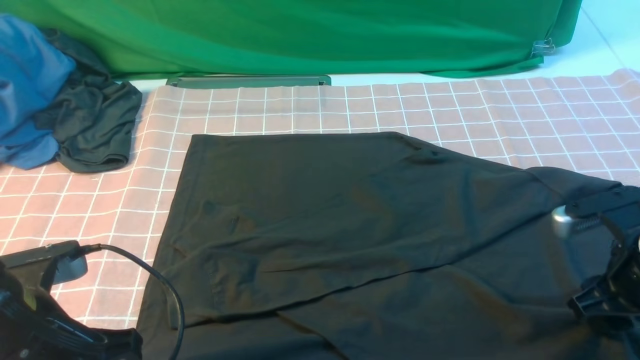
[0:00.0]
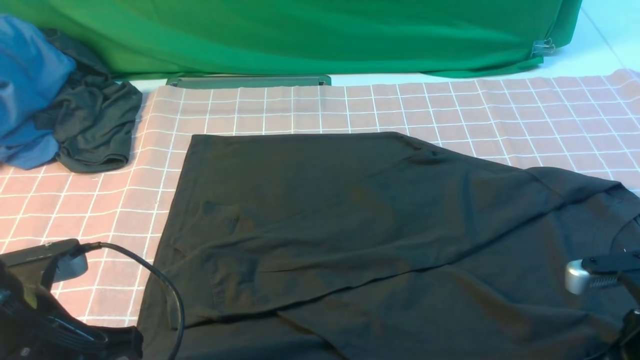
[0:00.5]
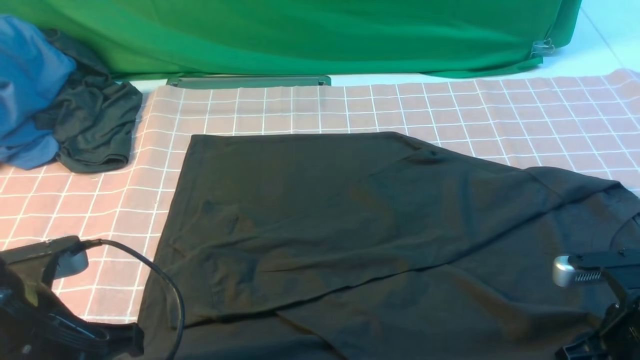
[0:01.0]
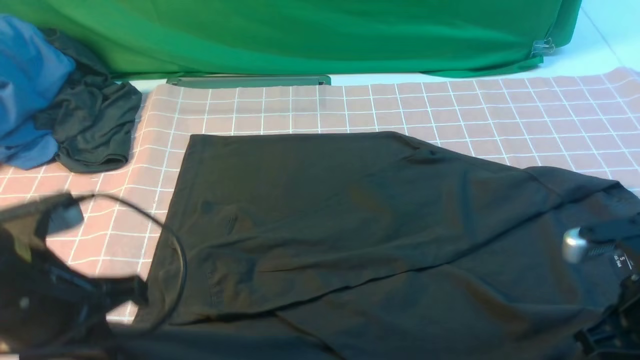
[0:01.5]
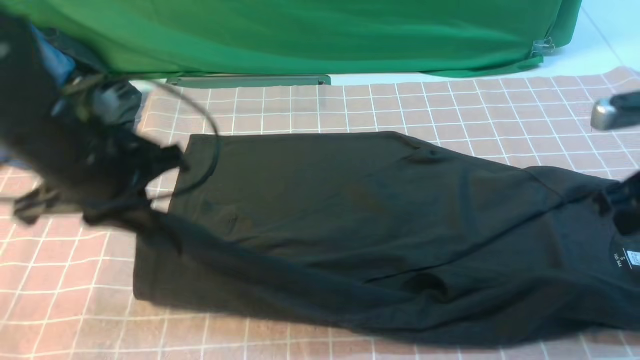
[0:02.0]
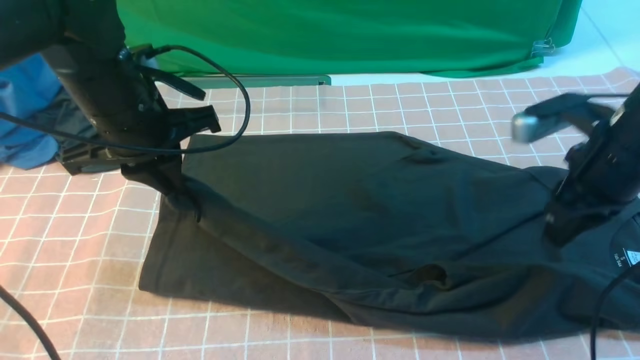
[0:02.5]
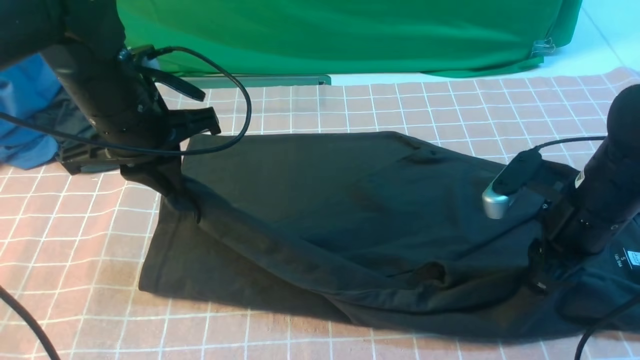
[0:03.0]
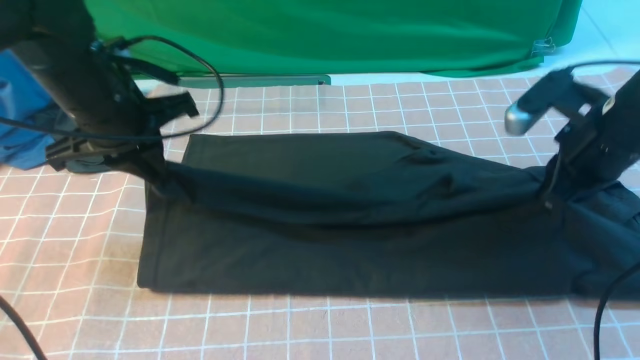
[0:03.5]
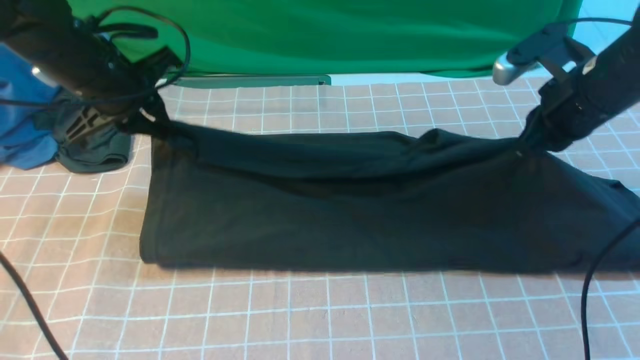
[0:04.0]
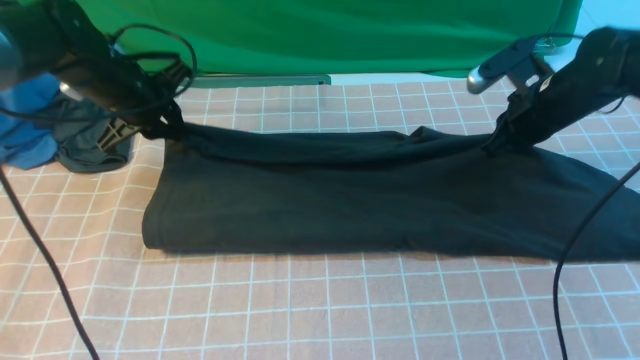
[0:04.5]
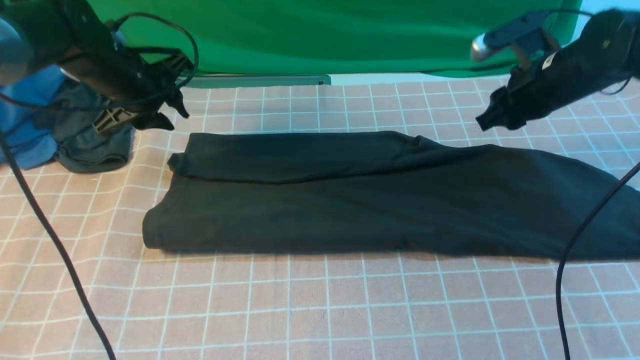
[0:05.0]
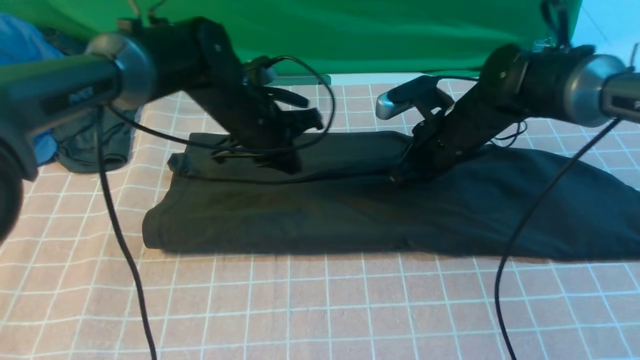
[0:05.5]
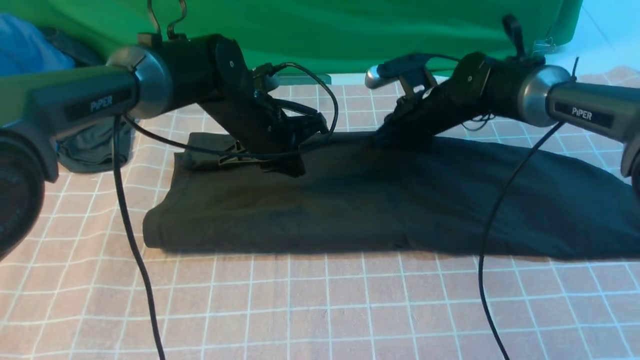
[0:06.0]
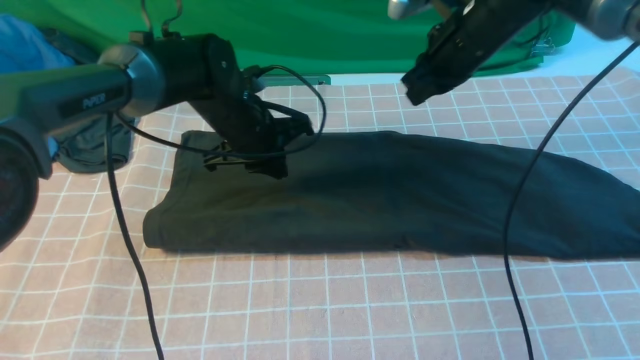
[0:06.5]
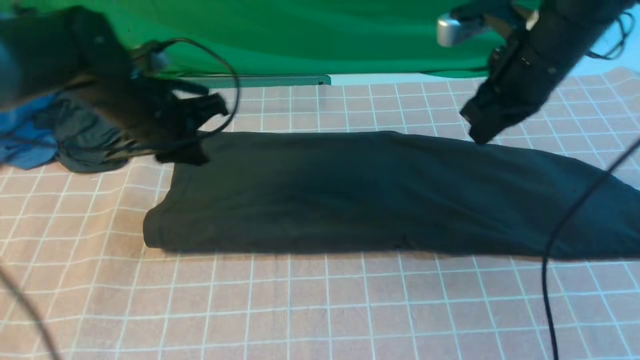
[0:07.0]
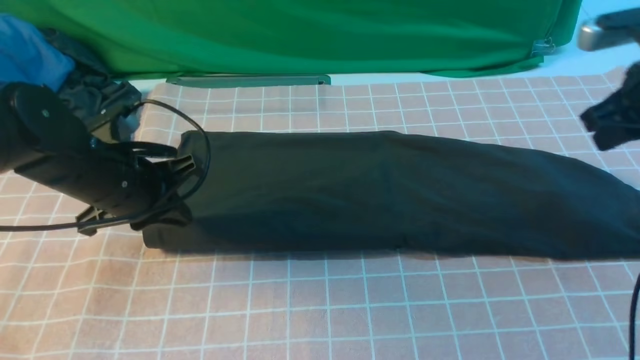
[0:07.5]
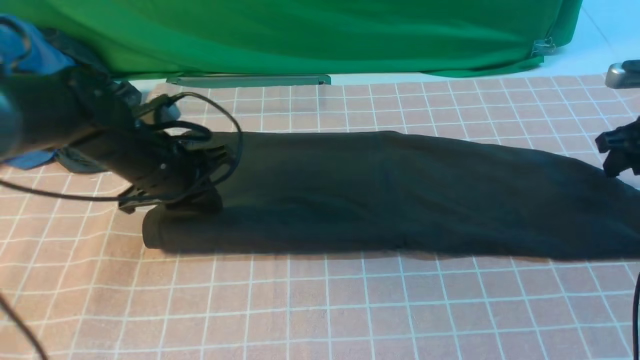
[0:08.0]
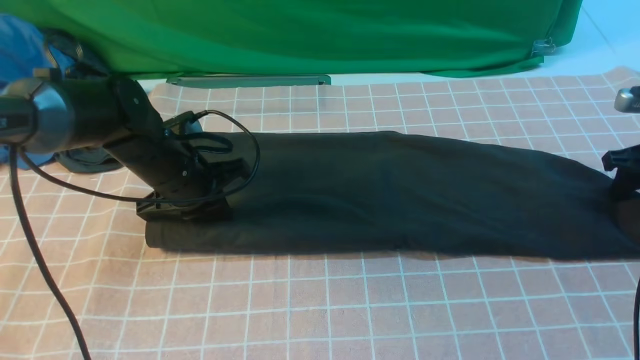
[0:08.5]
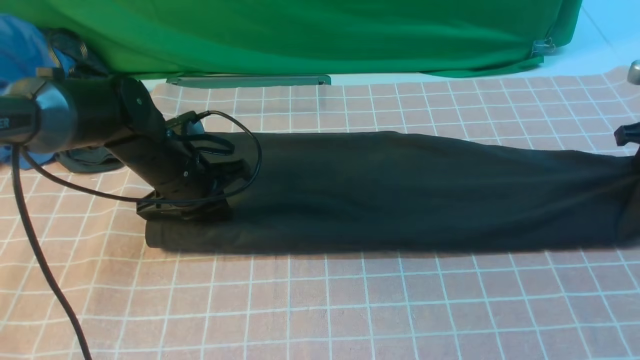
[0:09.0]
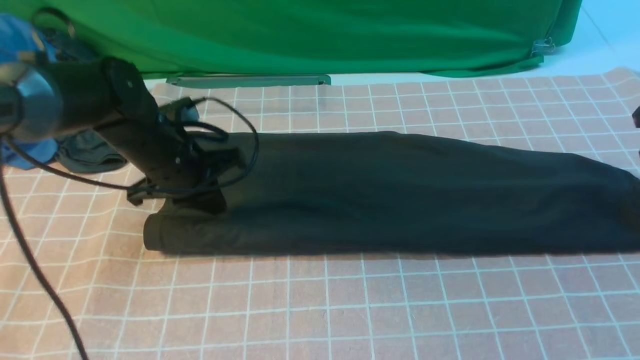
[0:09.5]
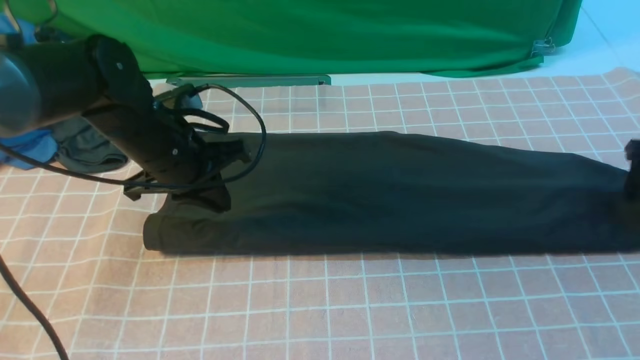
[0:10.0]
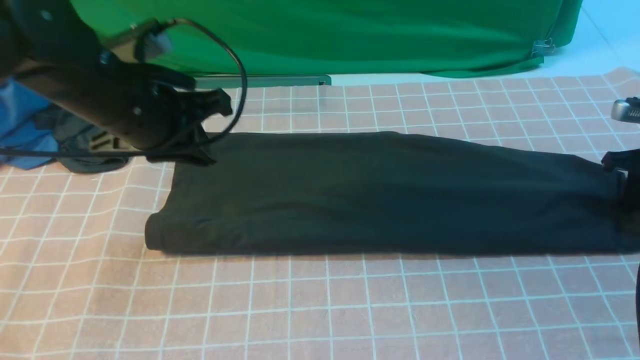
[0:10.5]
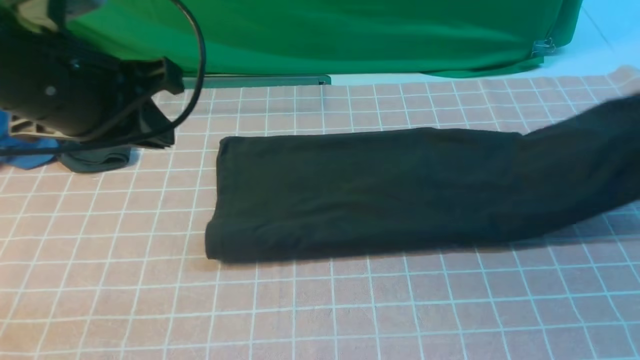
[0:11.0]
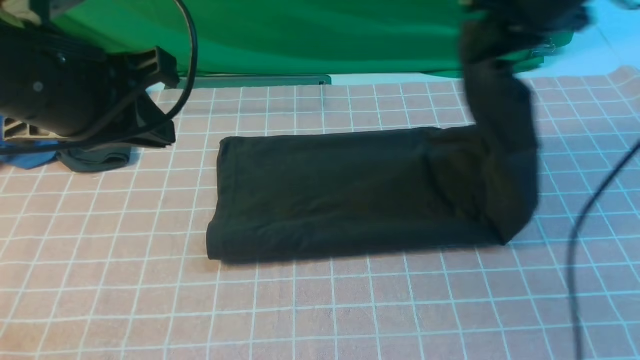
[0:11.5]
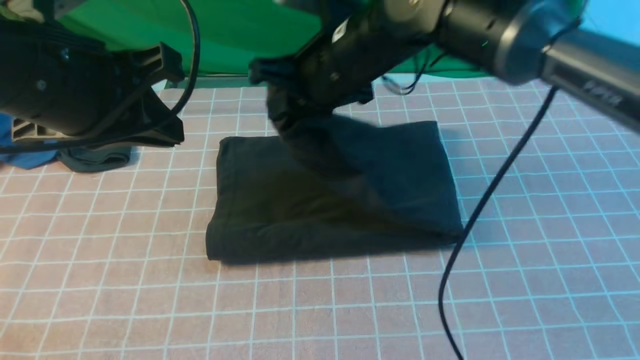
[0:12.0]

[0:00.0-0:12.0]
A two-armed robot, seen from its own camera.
Step, 0:02.0 to 0:05.0: use both arms to drag the lower edge of the fabric forward and fold it over the upper edge.
Step, 0:05.5 to 0:10.5: use the right arm to clamp the right edge of the fabric.
0:00.0 to 0:02.0: The left gripper goes roughly 15 cm forward and upward. The right gripper goes approximately 10 cm upward and forward, and closes up.
0:02.0 to 0:04.0: Both grippers travel together forward, roughly 10 cm. The right gripper opens, then closes once more.
0:04.0 to 0:06.0: The left gripper travels to the right and downward by some 15 cm. The right gripper travels to the left, forward and downward by roughly 15 cm.
0:06.0 to 0:08.0: The right gripper shifts some 25 cm to the right, and opens its fingers. Meanwhile the left gripper heads to the left and backward, covering some 10 cm.
0:08.0 to 0:10.0: The right gripper closes, then reopens.
0:10.0 to 0:12.0: The right gripper moves to the left, about 40 cm, and closes its fingers. Meanwhile the left gripper moves upward and backward, approximately 20 cm.

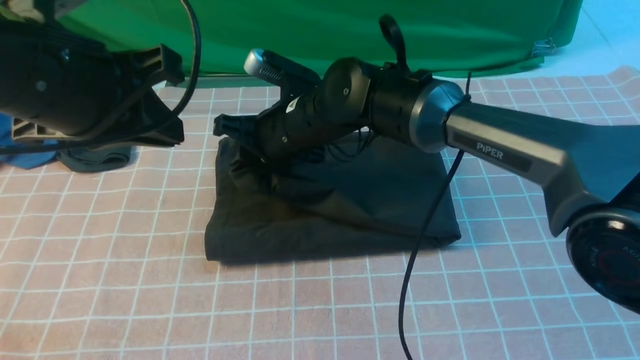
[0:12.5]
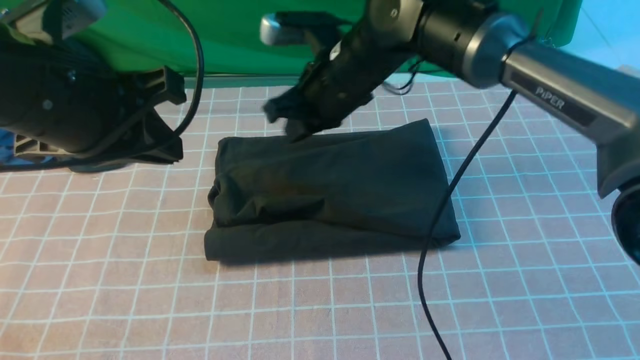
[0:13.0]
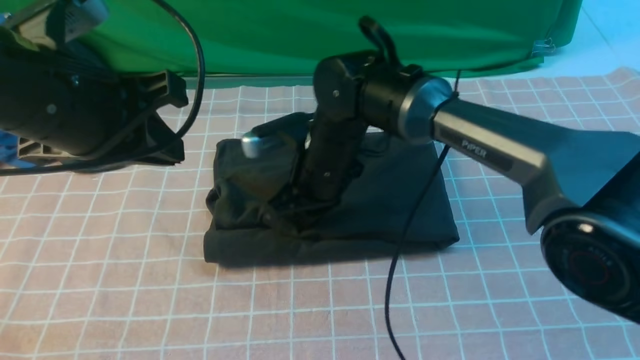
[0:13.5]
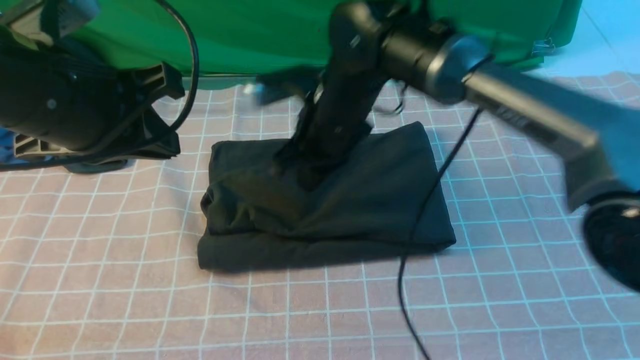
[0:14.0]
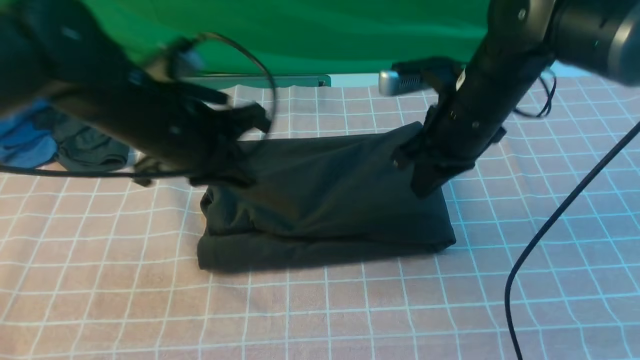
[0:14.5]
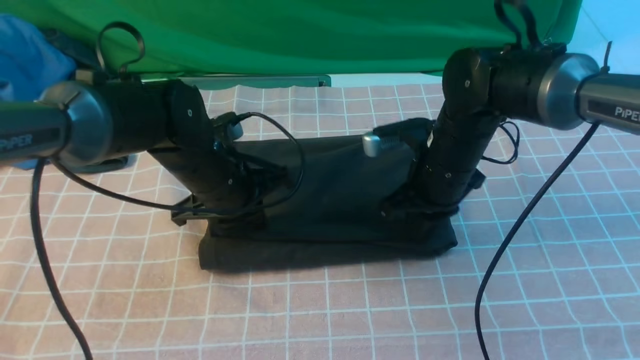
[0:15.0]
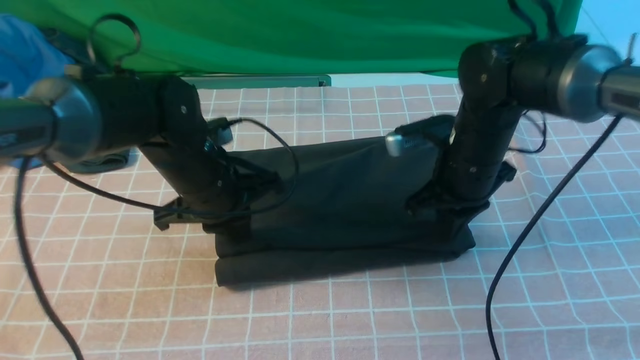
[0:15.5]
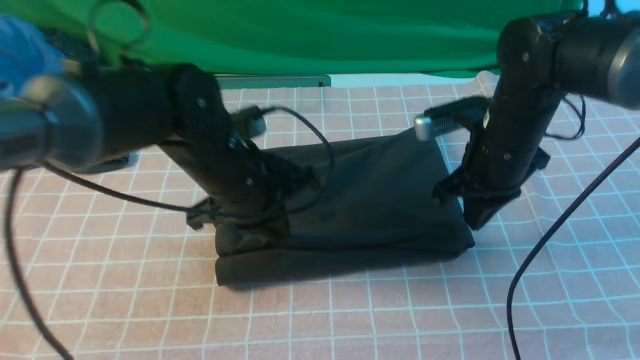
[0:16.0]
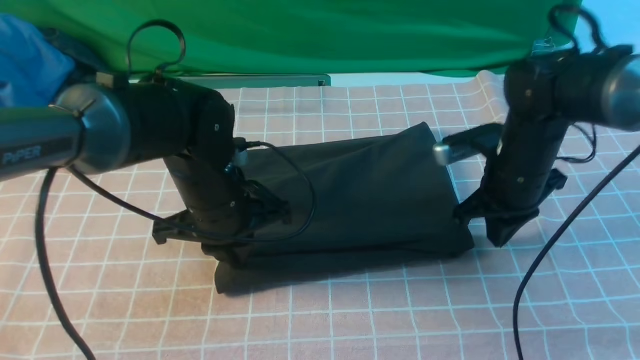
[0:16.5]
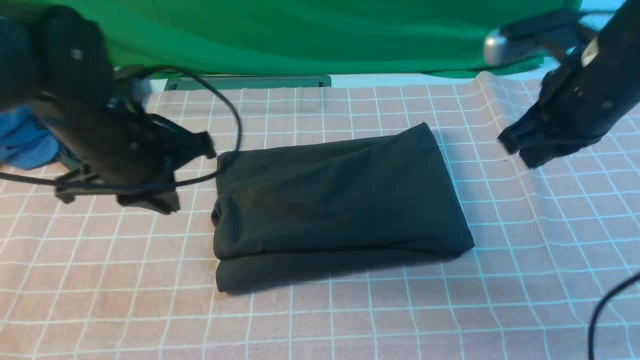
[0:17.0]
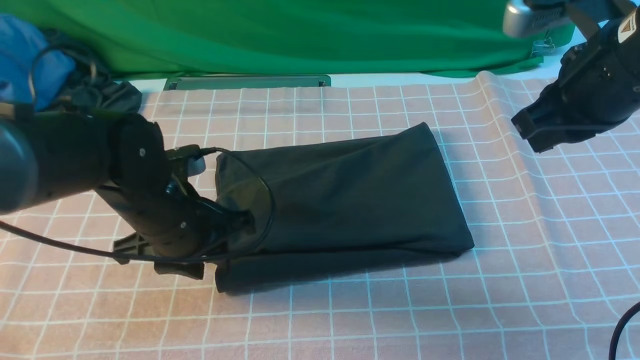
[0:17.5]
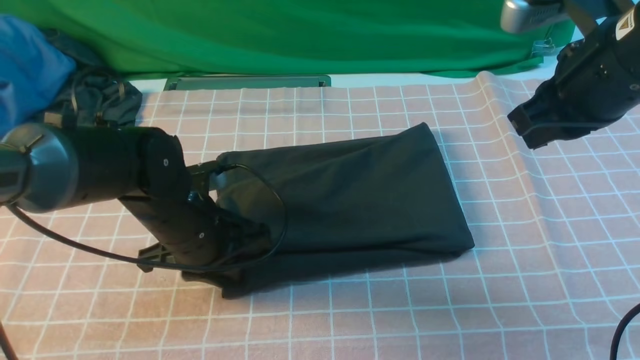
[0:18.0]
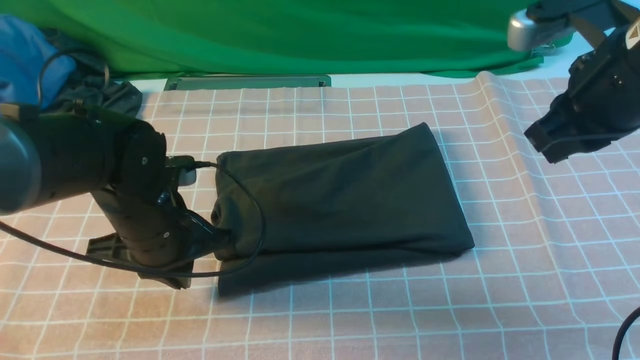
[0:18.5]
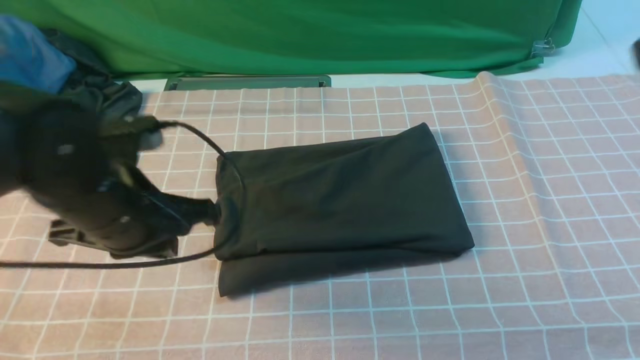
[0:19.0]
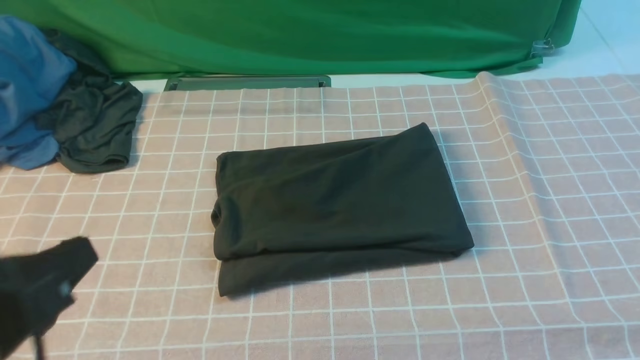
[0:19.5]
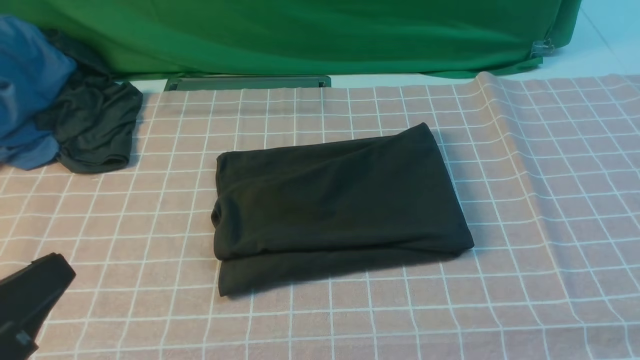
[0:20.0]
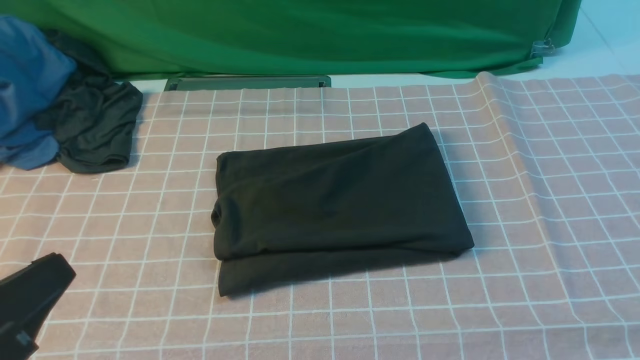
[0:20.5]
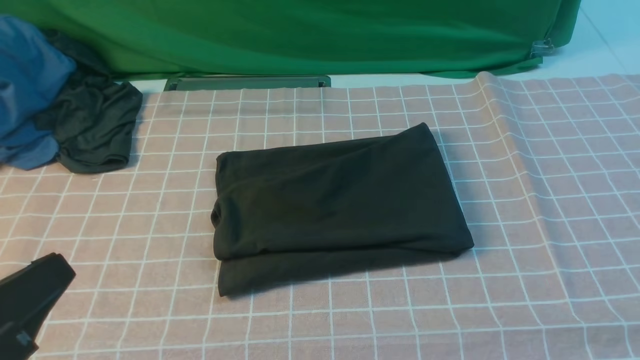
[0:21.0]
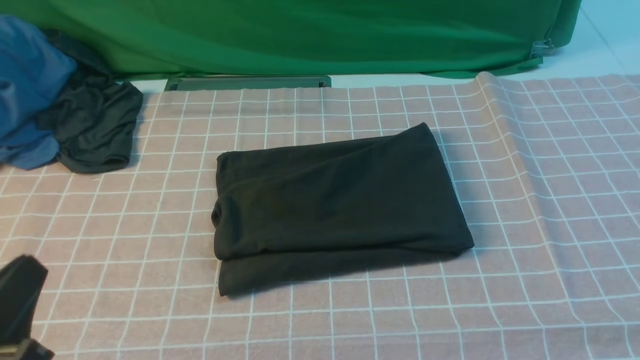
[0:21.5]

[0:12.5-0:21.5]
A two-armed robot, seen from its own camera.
0:12.5 to 0:14.5: The right gripper moves to the right, roughly 15 cm, and closes its fingers; the left gripper goes some 10 cm downward and forward.
0:14.5 to 0:17.0: The right gripper goes some 15 cm to the right, upward and backward. Meanwhile the left gripper reaches approximately 10 cm downward, then returns.
0:17.0 to 0:19.5: Both grippers move backward, about 25 cm. The left gripper opens, then closes once more.
0:19.5 to 0:21.5: The left gripper moves downward, about 5 cm.
